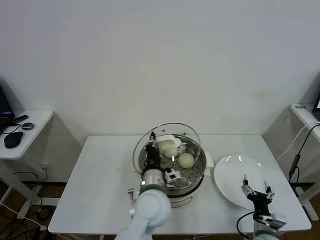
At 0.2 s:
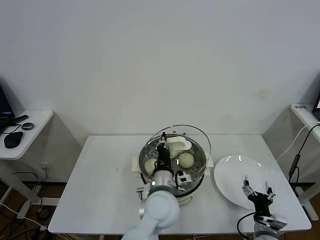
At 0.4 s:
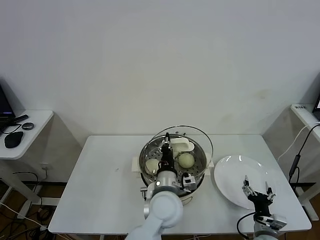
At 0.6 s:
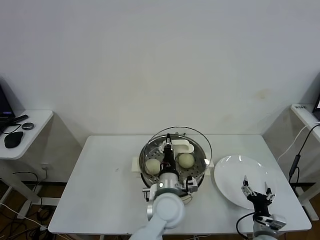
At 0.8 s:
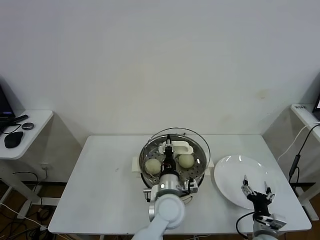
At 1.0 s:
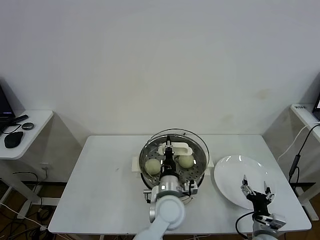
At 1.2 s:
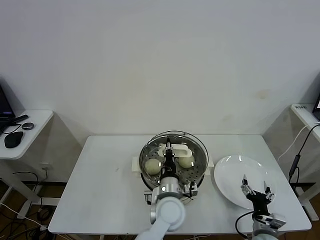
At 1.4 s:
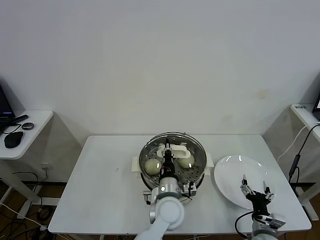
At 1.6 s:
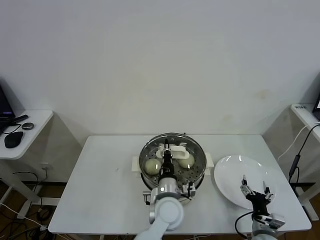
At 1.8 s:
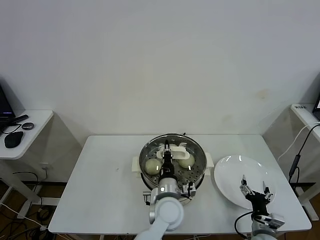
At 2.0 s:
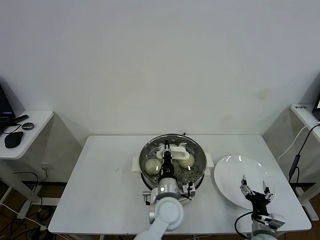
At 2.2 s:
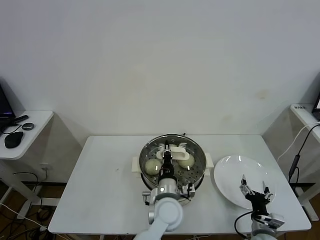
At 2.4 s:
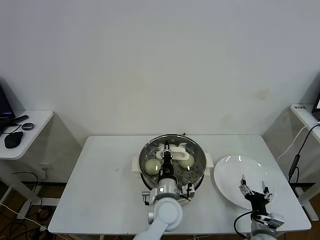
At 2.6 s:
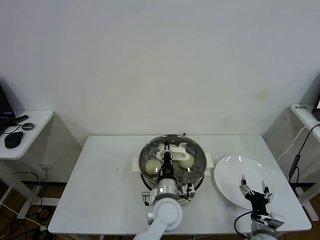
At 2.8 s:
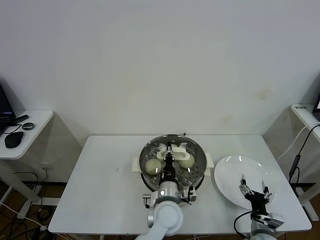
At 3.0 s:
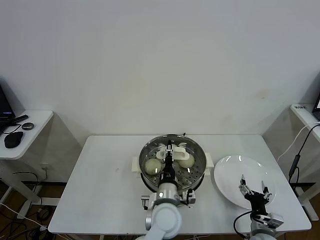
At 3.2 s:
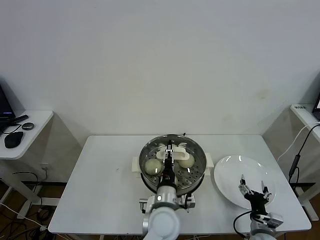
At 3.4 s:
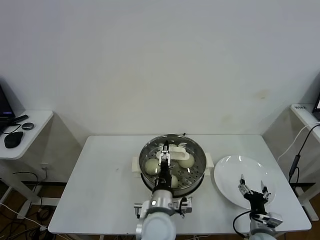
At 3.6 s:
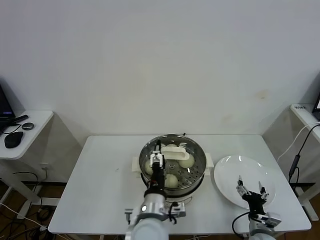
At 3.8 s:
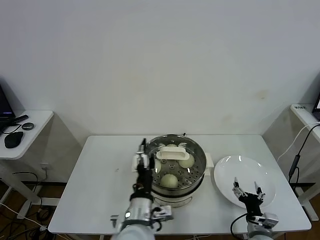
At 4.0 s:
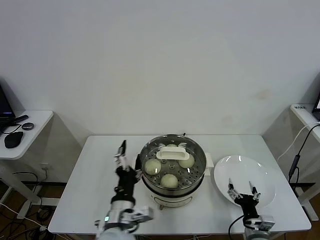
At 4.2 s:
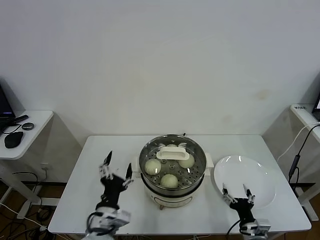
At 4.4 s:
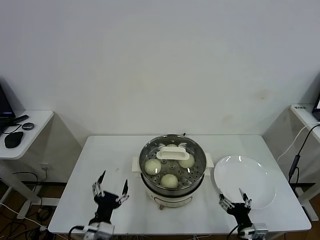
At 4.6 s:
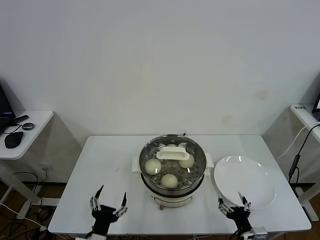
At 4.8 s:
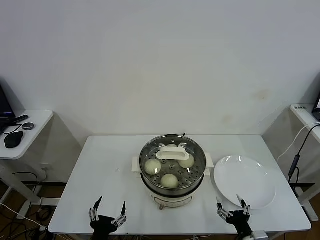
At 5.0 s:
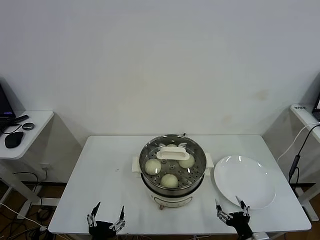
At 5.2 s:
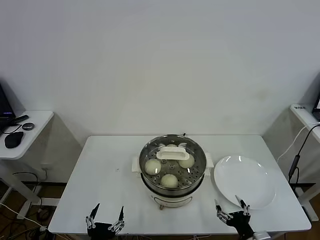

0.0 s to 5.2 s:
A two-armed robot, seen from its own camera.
Task of the whole recording: take steamed baozi put them in steamer.
Step, 0.0 to 3.4 s: Place the pot lid on the steamer with left gripper.
0.0 to 1.8 s: The left gripper travels downward and to the right by about 10 cm.
1.8 to 3.4 s: The left gripper moves roughly 5 cm, and opens.
3.4 to 5.2 s: The right gripper is displaced backward by roughly 10 cm. Meanwhile the left gripper moves to the left and backward, roughly 25 cm.
